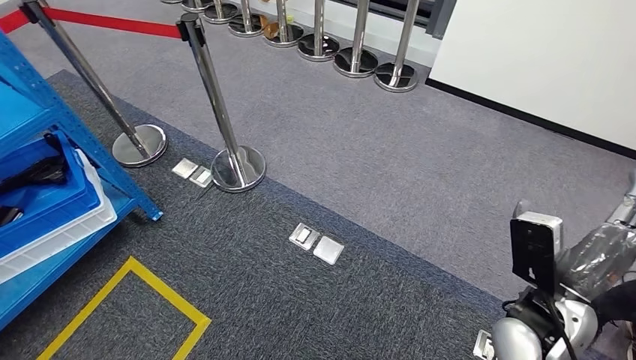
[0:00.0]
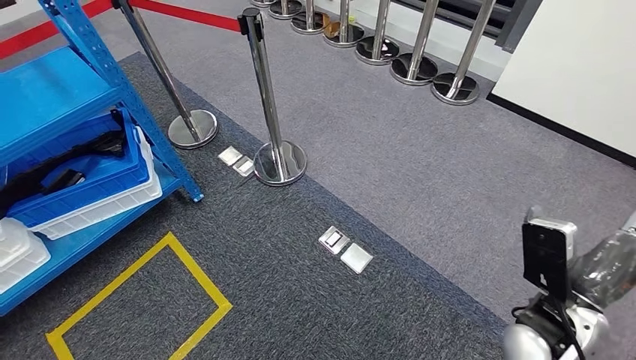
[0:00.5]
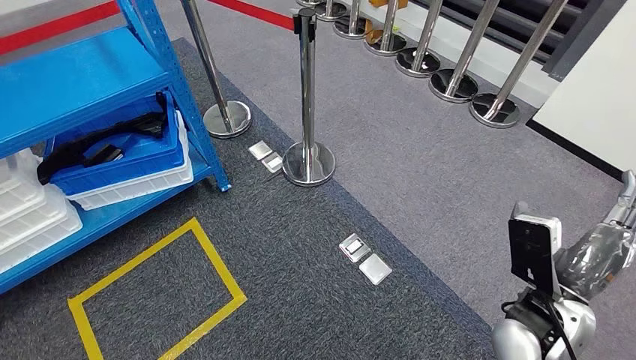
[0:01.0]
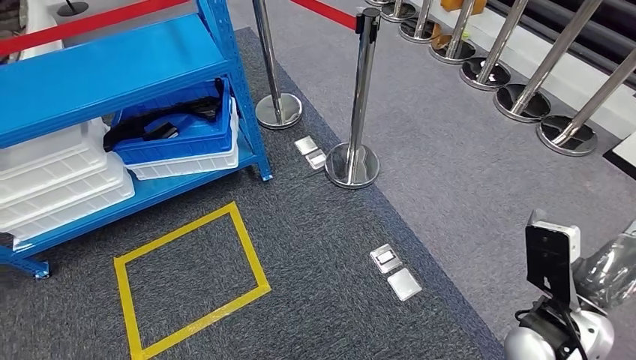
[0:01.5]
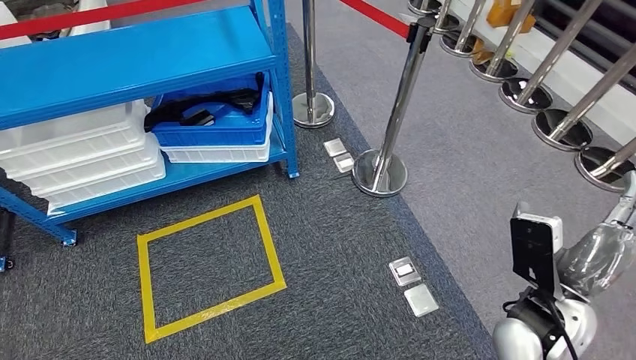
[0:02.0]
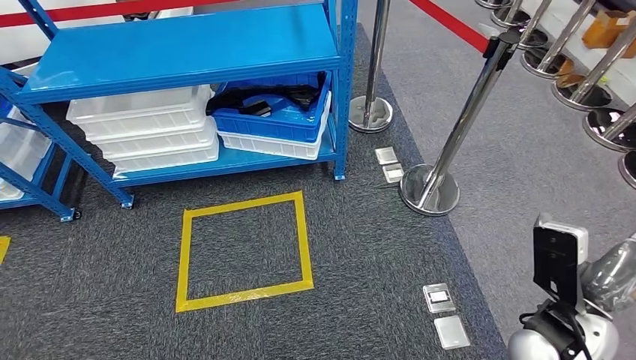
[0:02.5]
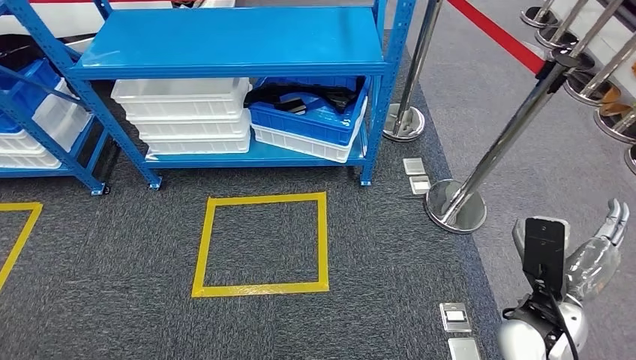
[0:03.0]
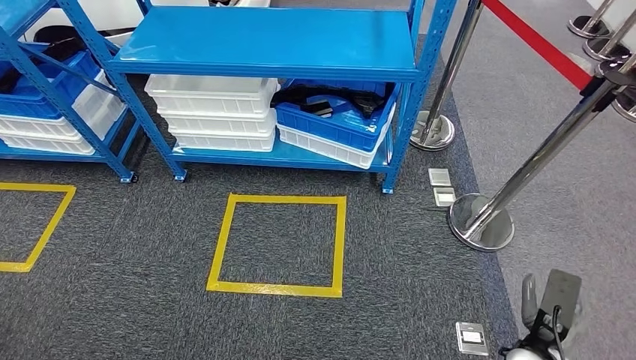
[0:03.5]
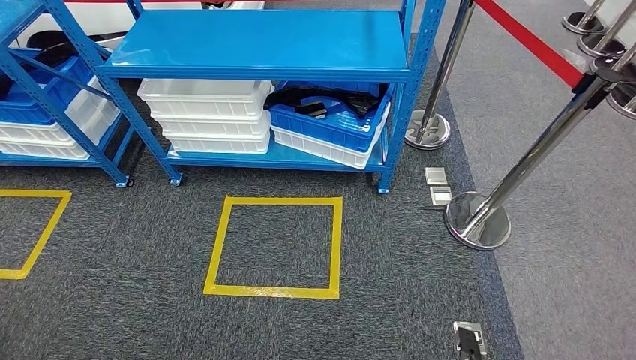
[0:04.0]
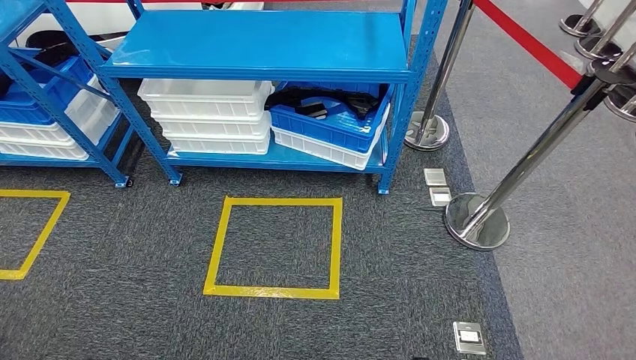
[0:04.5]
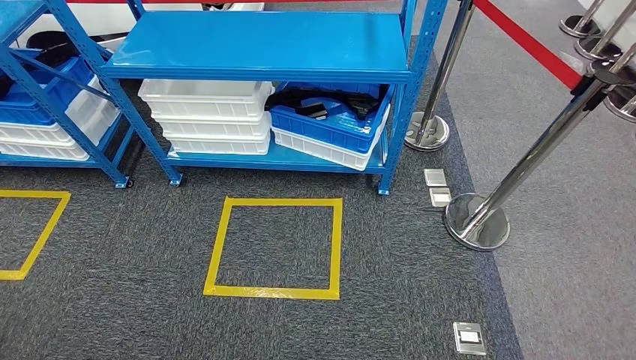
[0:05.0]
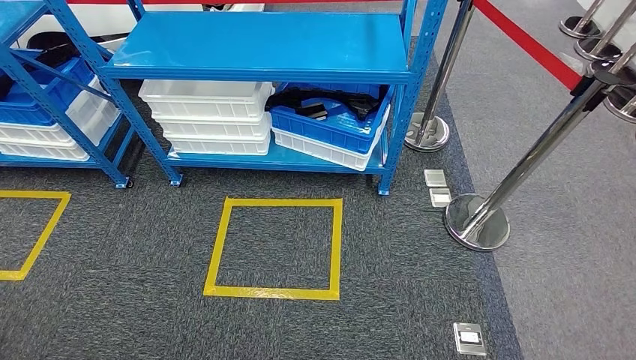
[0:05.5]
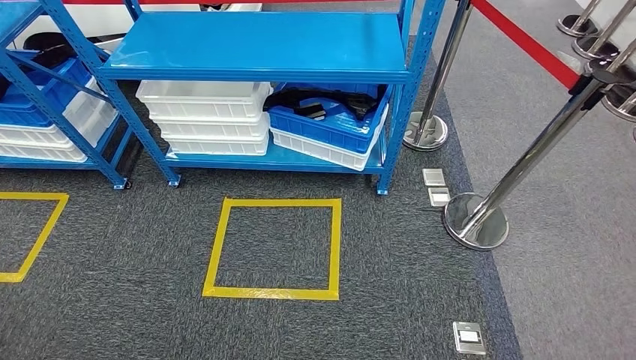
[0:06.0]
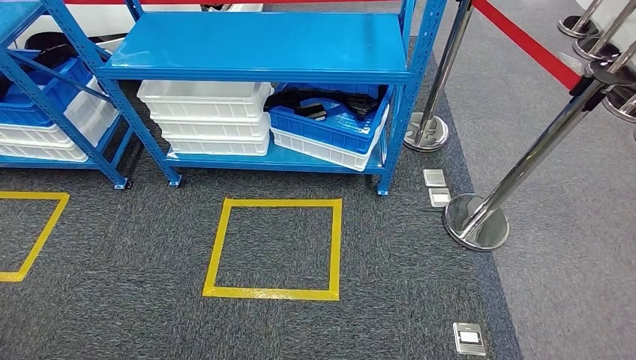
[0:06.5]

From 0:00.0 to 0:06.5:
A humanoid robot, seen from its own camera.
Step, from 0:00.0 to 0:06.5: Return to the initial position at the shelf.
From 0:04.5 to 0:06.5: The left hand moves to the left and backward, some 10 cm. Meanwhile the right hand heads backward, covering some 10 cm.
